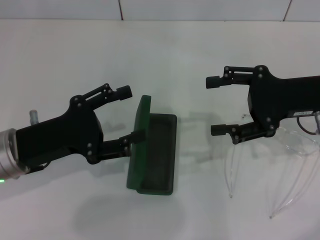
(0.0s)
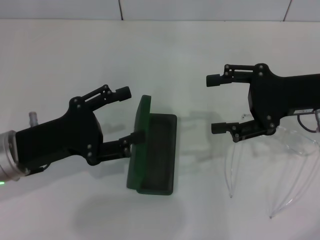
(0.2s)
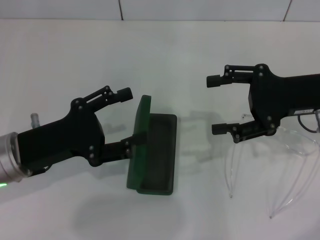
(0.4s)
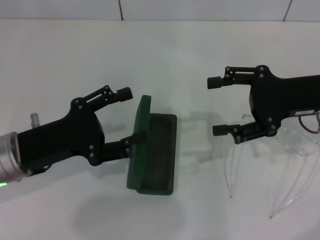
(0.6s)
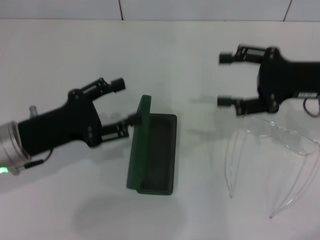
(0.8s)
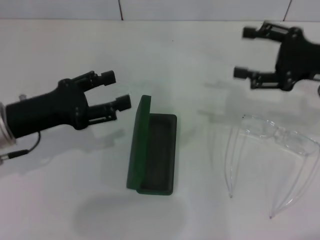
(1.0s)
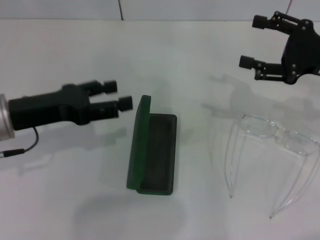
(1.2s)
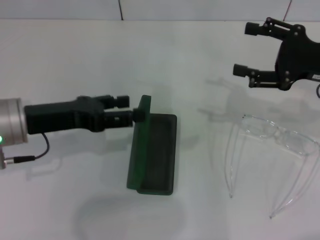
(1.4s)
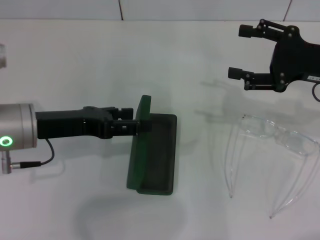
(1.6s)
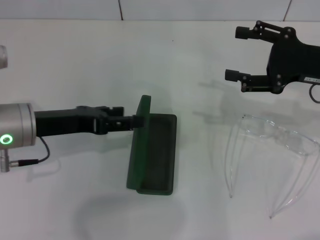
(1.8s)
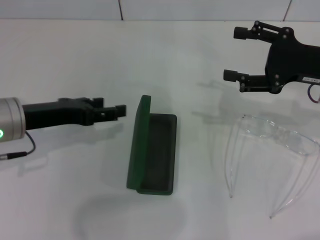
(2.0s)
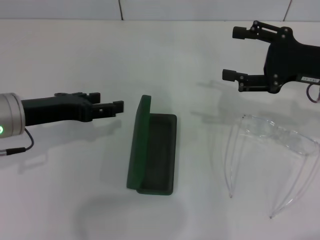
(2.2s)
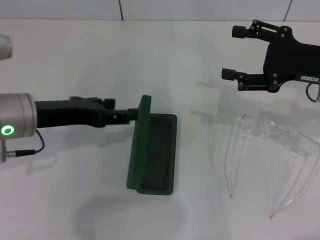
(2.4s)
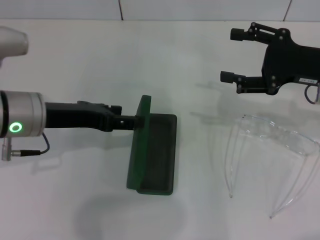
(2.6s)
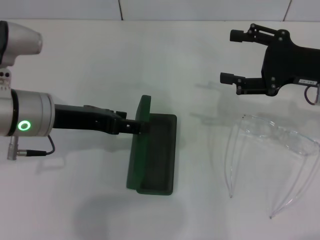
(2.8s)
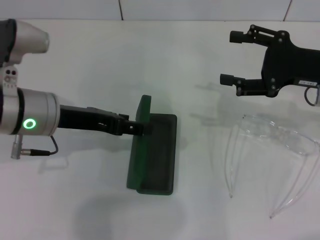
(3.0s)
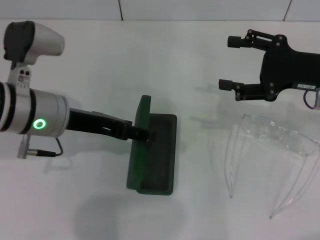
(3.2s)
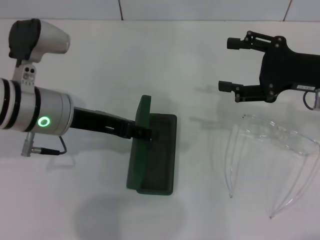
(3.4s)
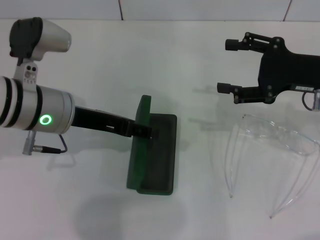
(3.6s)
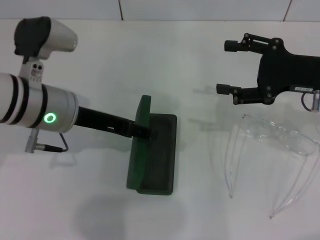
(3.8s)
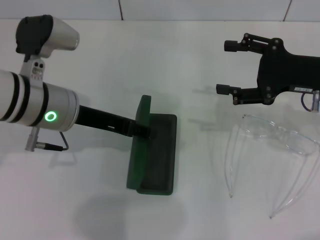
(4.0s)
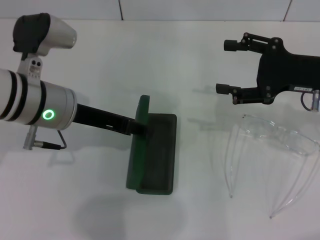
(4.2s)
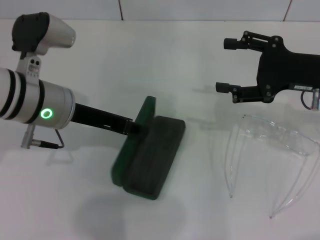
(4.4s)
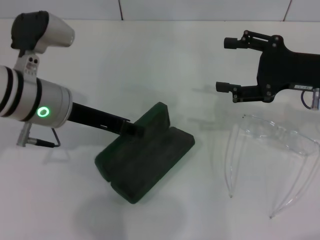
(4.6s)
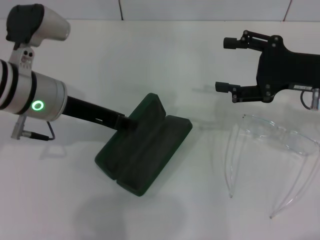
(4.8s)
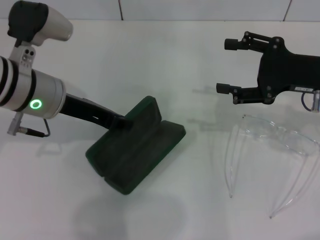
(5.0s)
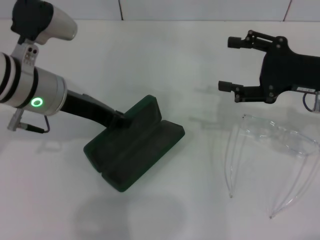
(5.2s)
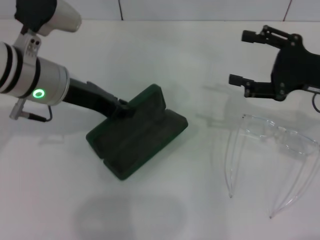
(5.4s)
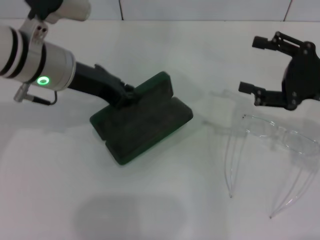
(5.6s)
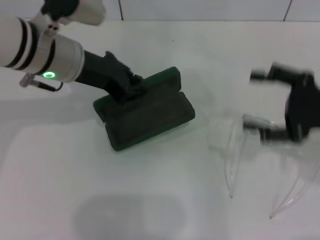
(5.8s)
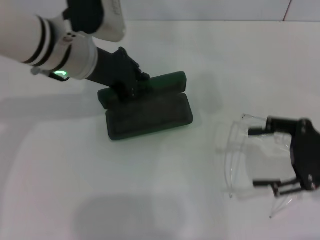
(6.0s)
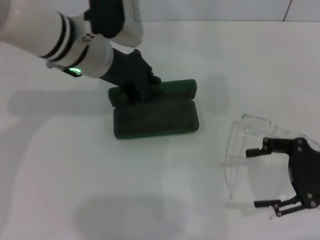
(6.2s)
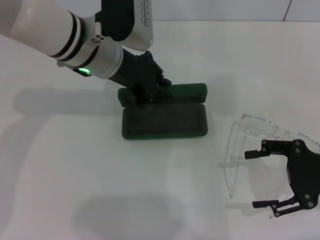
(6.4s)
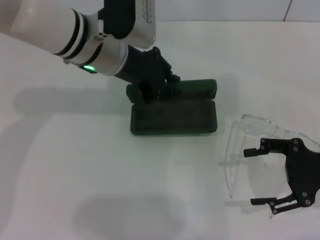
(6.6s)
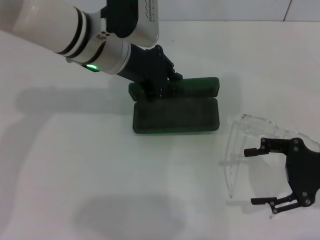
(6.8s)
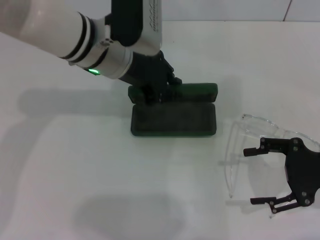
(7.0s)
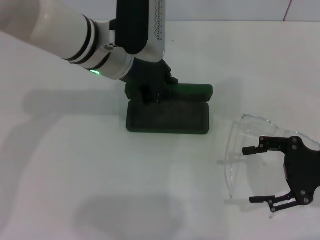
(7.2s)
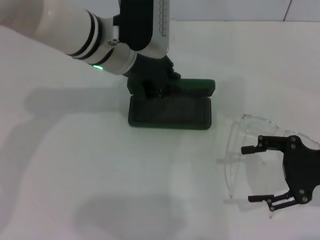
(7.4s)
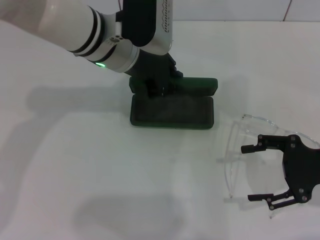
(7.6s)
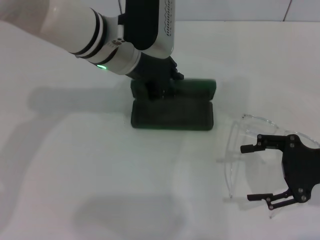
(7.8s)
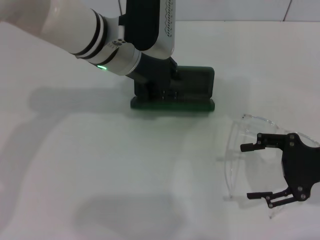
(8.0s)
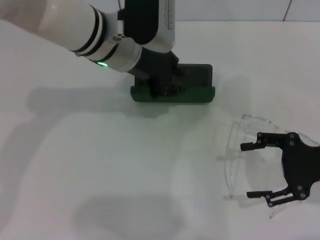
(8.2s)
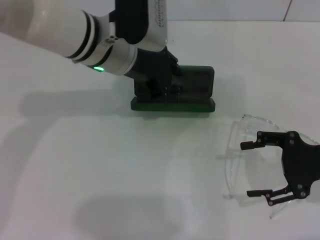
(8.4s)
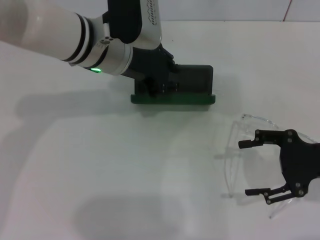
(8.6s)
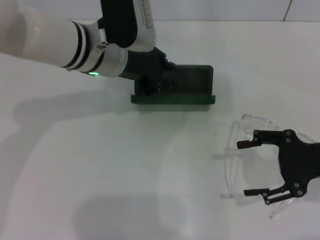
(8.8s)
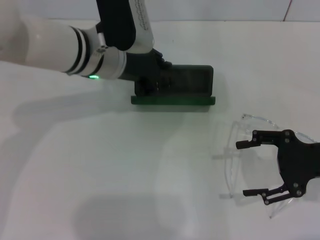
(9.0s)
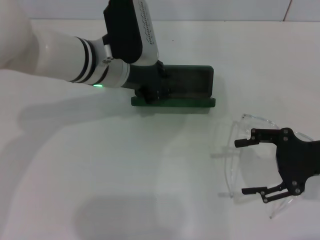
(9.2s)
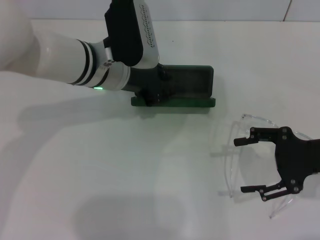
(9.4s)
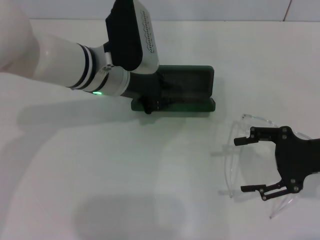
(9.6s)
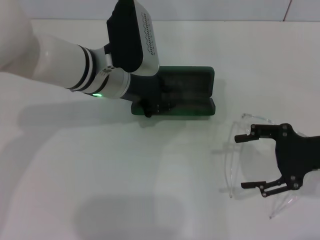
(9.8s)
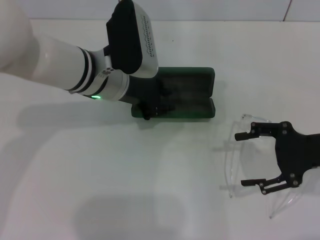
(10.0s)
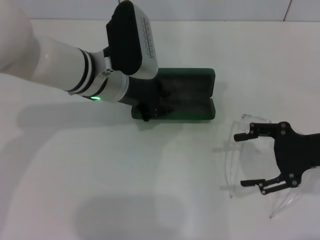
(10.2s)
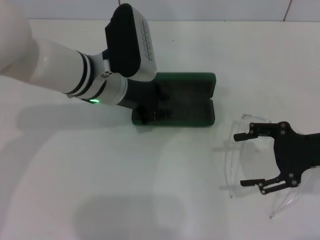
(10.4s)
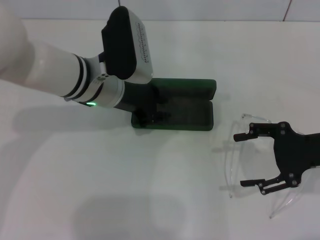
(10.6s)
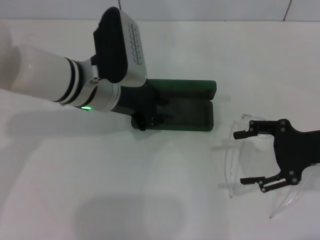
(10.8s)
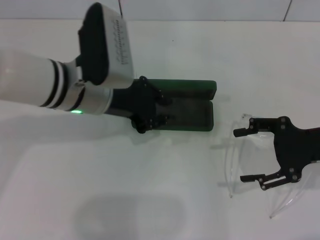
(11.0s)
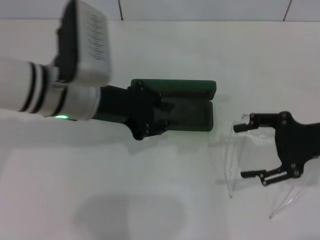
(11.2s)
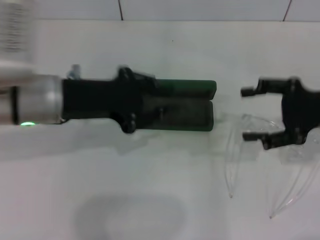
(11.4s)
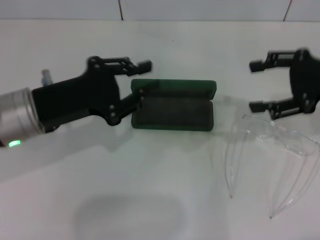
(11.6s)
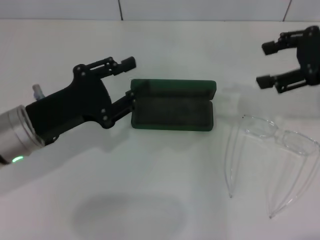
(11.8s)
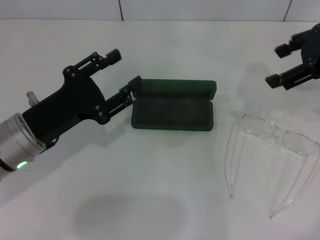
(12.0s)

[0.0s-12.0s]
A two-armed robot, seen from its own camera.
Step, 0.0s to 4.8s: Grab the glasses case with your left hand.
Step, 5.0s to 8.2s: Place the glasses case in the center of the table with your left hand.
0.0s to 1.6s: The left gripper shifts by some 5 cm.
1.6s to 3.0s: There are only small adjustments of the grippers.
3.0s to 4.4s: The left gripper closes up.
4.4s to 6.0s: The left gripper is displaced forward by about 5 cm, and closes its fingers, while the right gripper travels backward by about 5 cm.
6.0s to 7.6s: The left gripper shifts approximately 5 cm to the right.
7.6s to 10.4s: The grippers make only small movements.
10.4s to 12.0s: The left gripper goes roughly 15 cm to the left and backward, while the right gripper goes approximately 15 cm upward and forward.

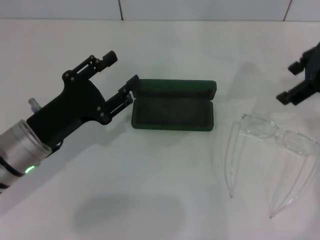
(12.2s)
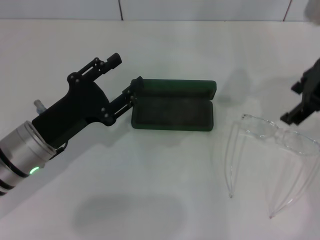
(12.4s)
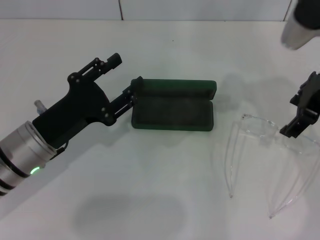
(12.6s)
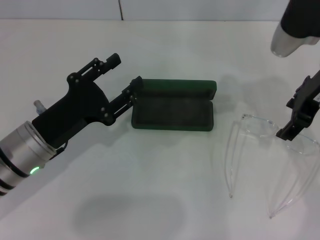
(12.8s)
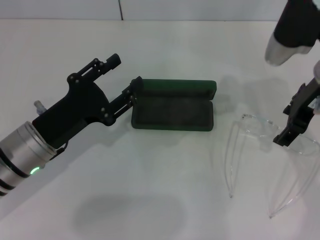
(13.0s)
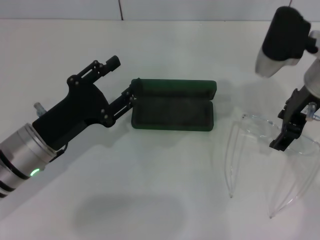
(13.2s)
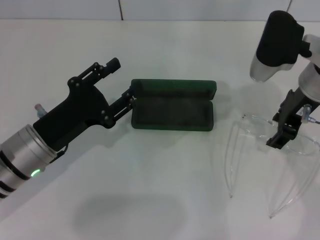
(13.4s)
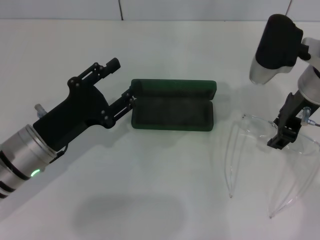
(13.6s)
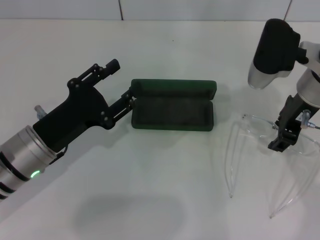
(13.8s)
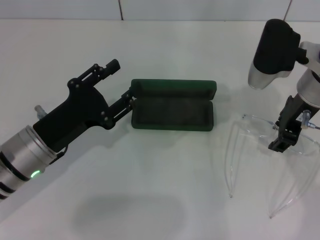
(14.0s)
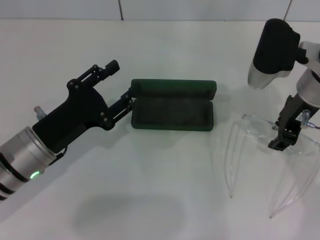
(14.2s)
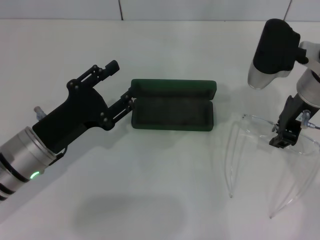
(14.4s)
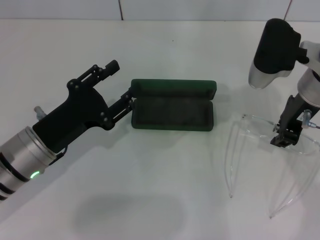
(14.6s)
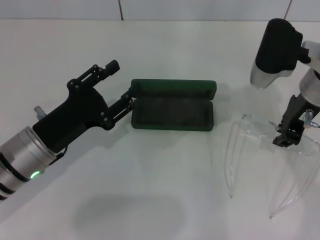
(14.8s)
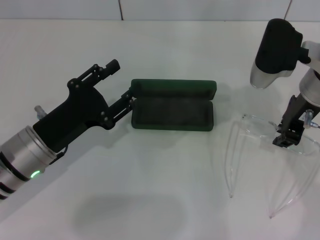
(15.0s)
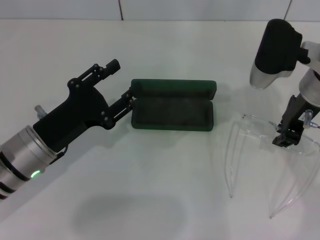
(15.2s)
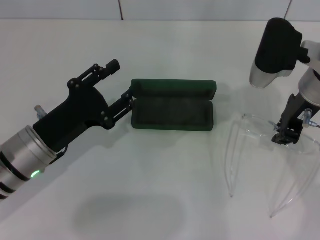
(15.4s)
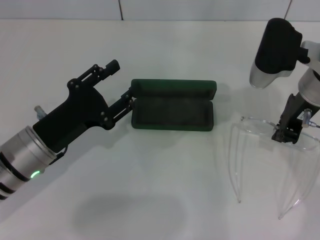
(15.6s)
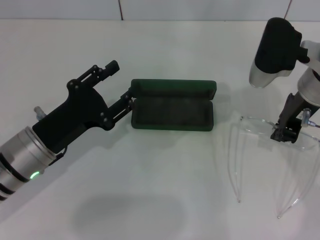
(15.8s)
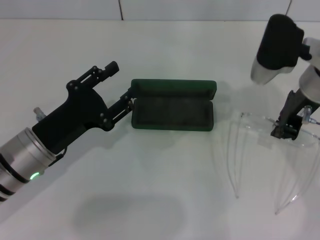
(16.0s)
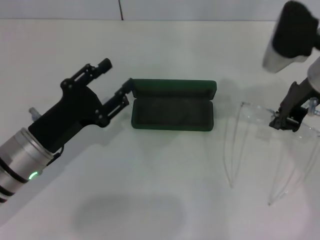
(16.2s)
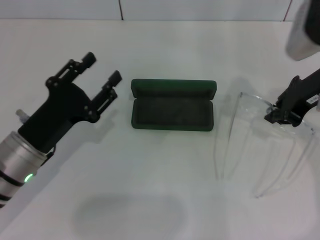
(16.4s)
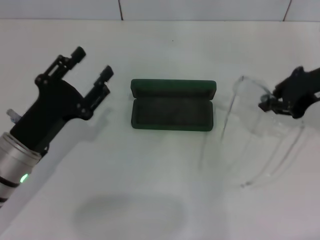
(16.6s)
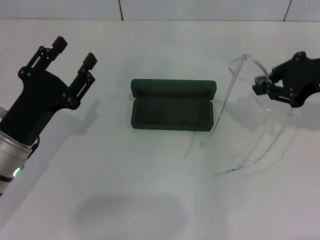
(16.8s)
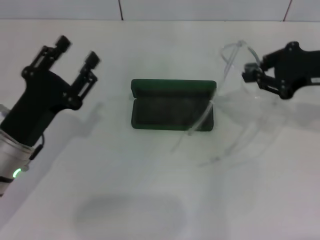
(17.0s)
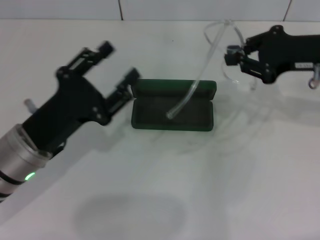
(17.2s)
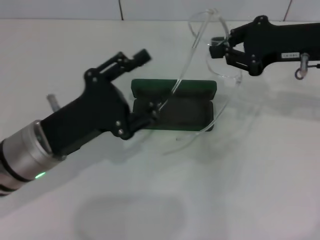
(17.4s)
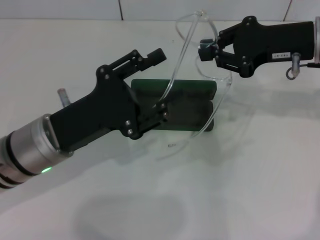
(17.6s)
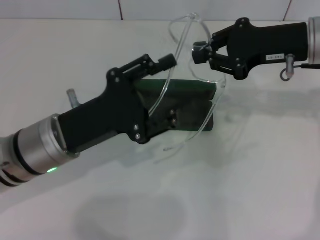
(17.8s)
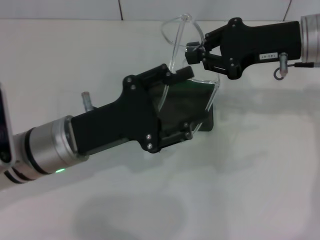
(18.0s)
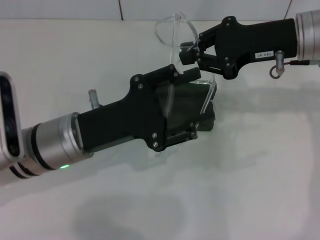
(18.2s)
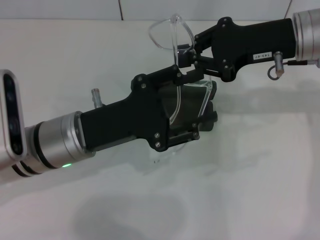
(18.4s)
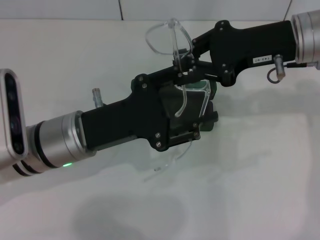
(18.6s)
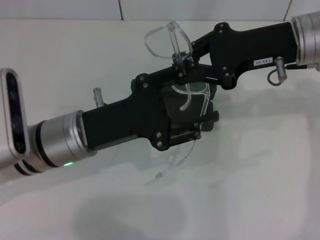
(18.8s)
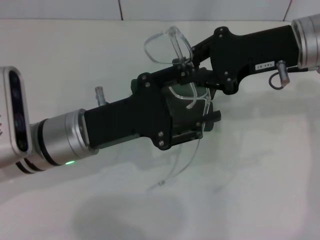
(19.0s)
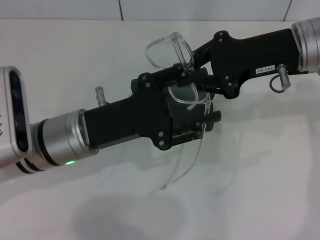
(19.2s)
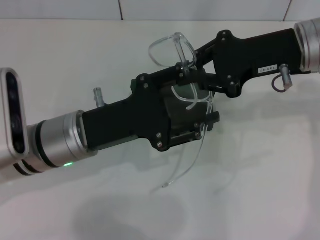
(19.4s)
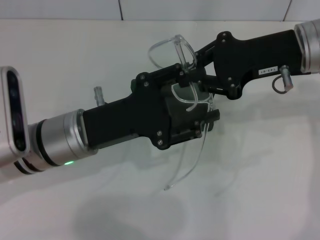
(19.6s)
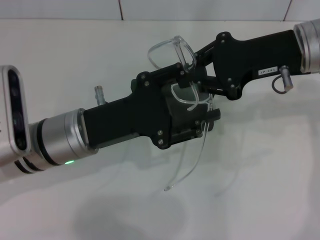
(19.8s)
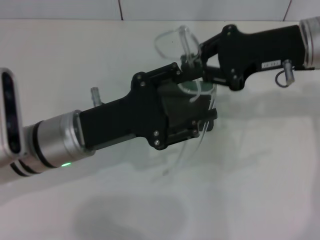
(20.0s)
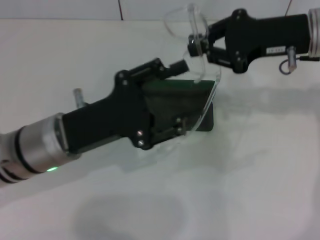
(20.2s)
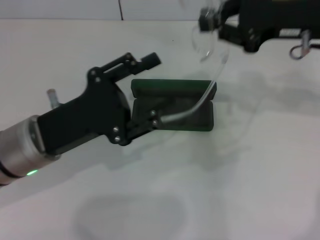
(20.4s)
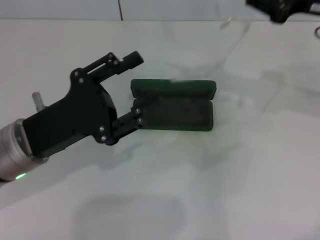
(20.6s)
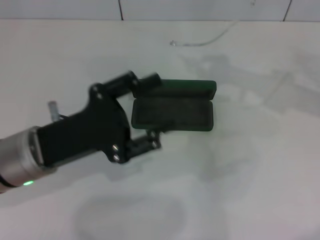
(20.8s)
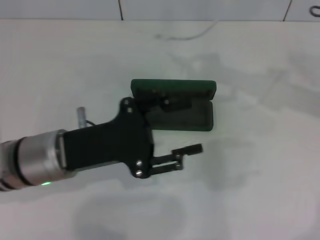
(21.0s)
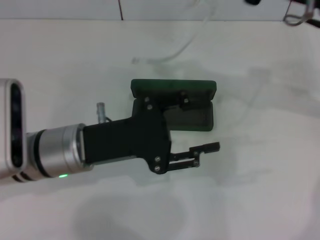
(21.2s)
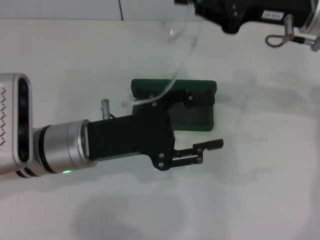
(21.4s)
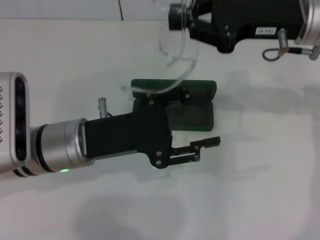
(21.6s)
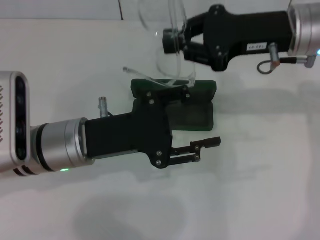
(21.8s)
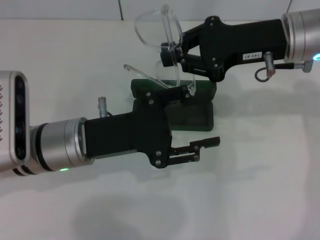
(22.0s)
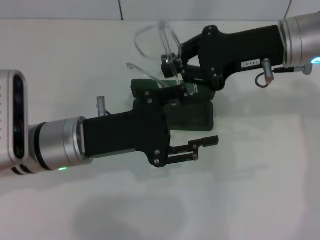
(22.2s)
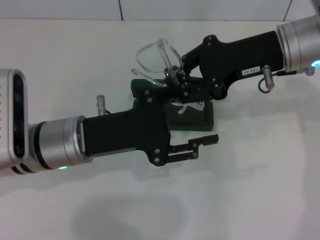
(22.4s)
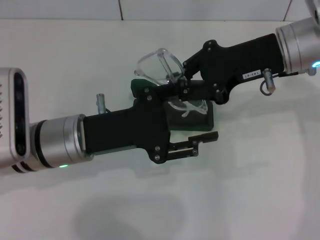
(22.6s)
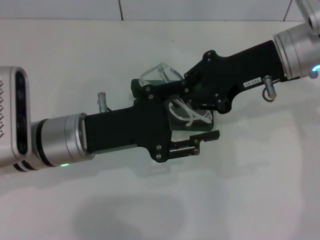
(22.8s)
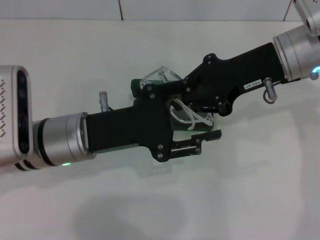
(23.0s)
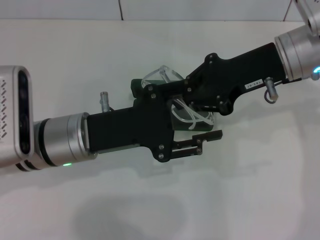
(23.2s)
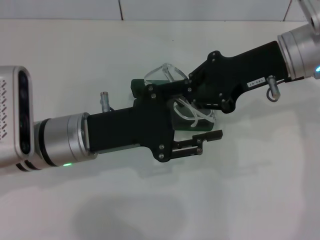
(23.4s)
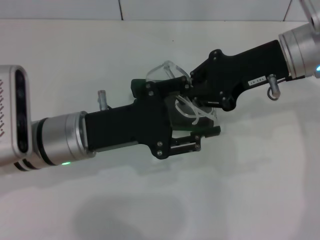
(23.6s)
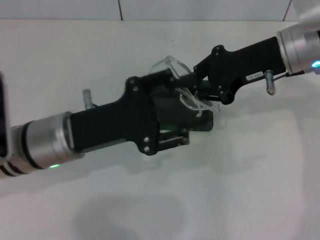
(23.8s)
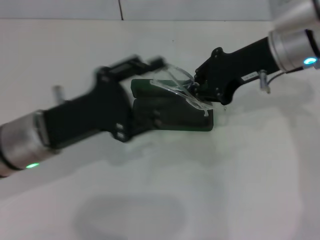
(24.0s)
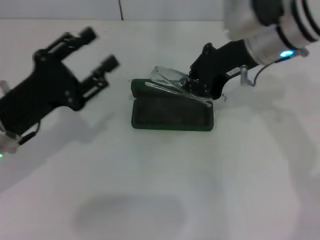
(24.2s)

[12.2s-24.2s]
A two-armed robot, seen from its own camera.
Step, 12.2s to 15.6s: Grab the eyeglass frame with your right hand.
Step, 15.8s to 23.4s: Fold the frame with your left hand.
12.2s to 13.8s: The right gripper travels downward and to the left by some 10 cm.
13.8s to 15.2s: The right gripper closes up.
15.2s to 16.6s: The right gripper heads to the right, covering approximately 5 cm.
16.6s to 18.2s: The right gripper goes roughly 5 cm to the left; the left gripper is displaced to the right by approximately 5 cm.
18.2s to 19.8s: The grippers move only a little.
21.2s to 22.6s: The right gripper moves some 5 cm.
22.6s to 24.2s: The left gripper heads to the left, covering roughly 10 cm.
